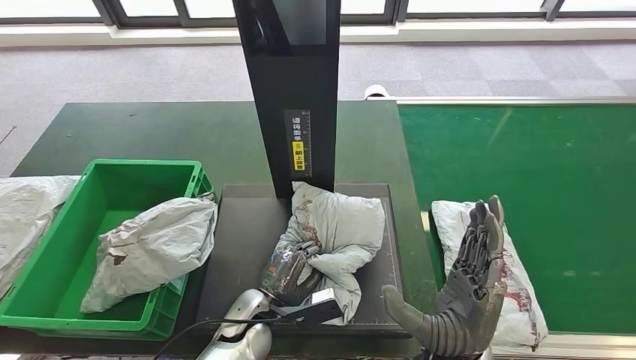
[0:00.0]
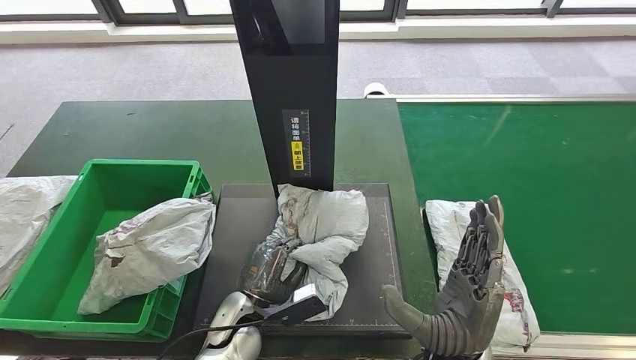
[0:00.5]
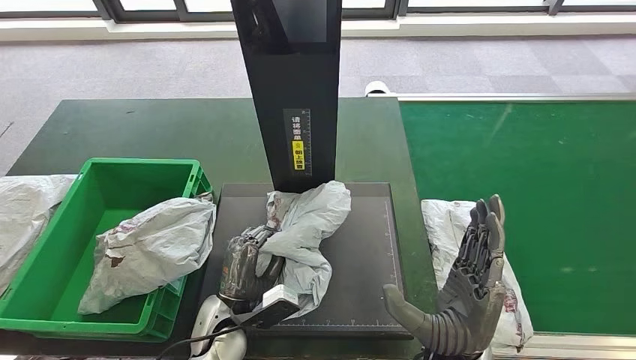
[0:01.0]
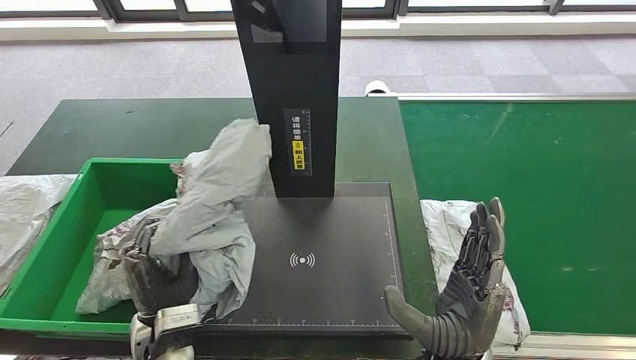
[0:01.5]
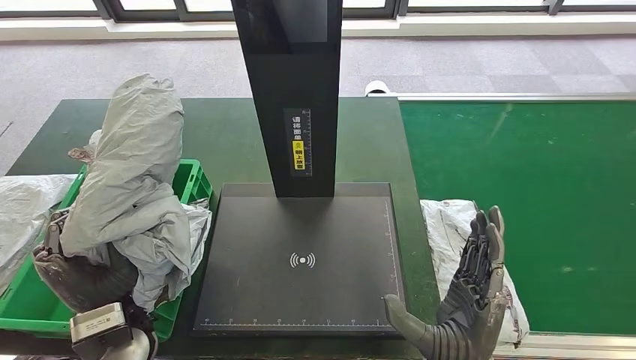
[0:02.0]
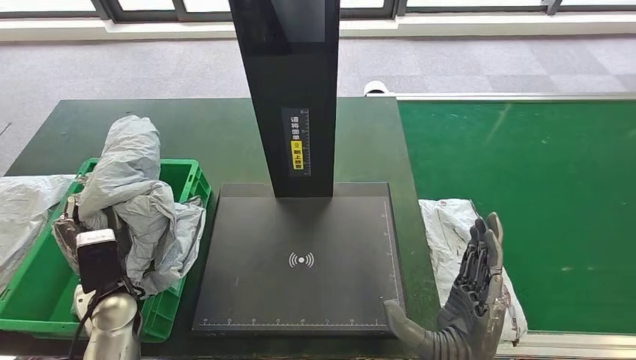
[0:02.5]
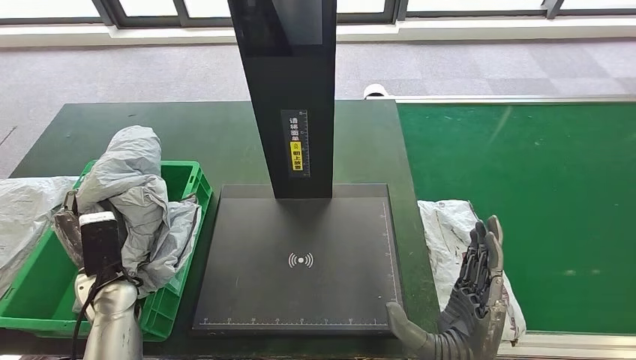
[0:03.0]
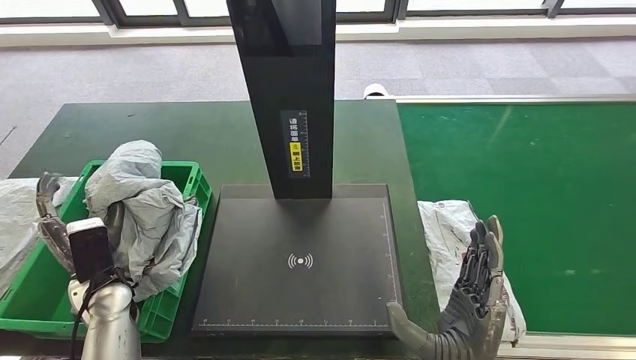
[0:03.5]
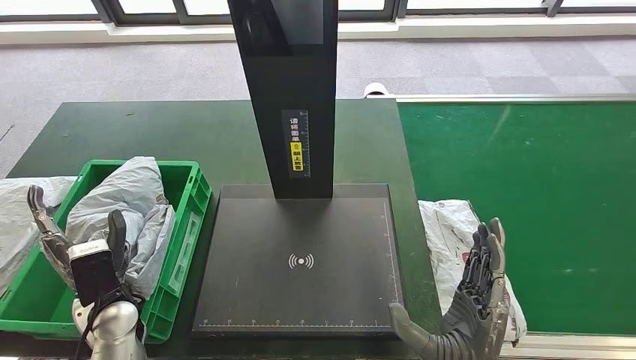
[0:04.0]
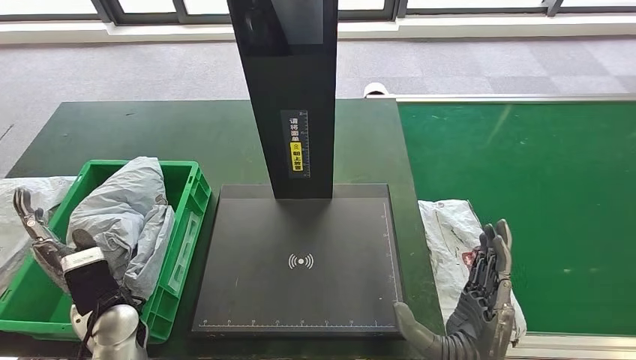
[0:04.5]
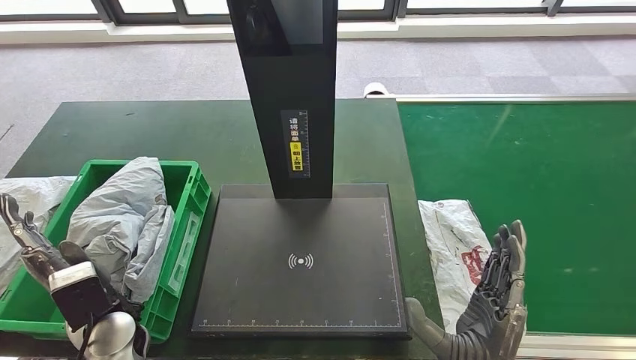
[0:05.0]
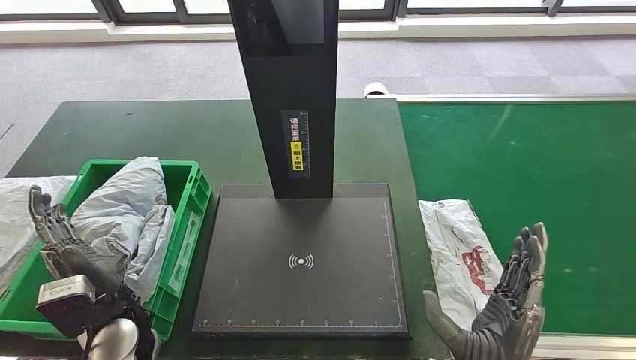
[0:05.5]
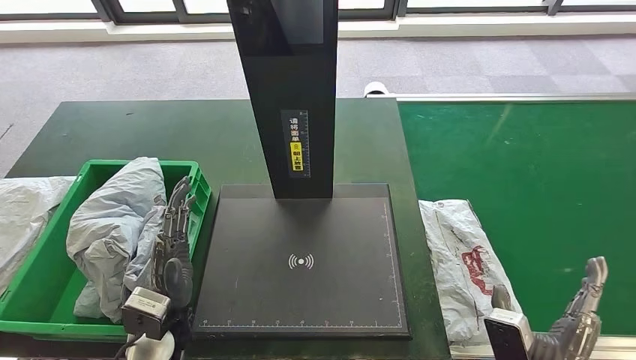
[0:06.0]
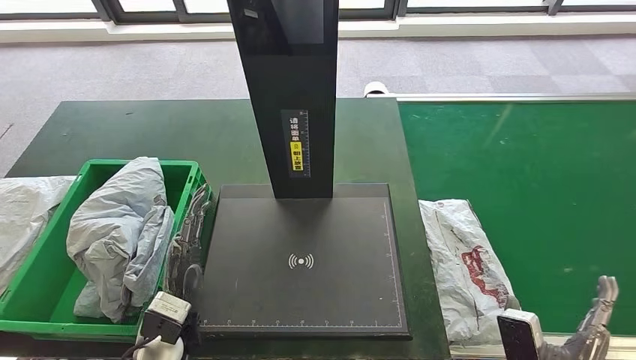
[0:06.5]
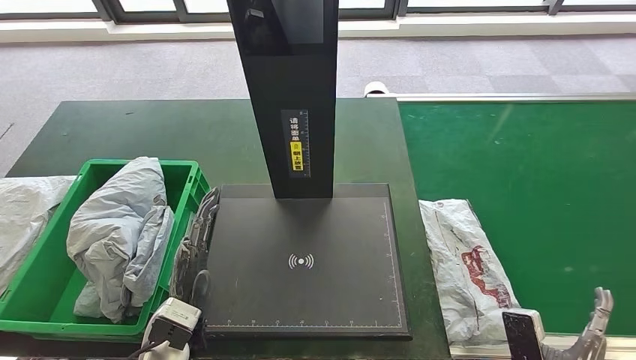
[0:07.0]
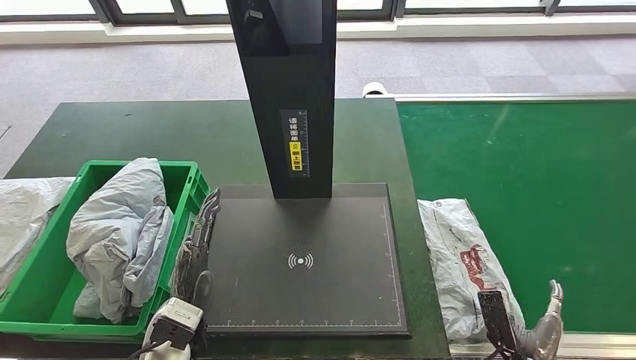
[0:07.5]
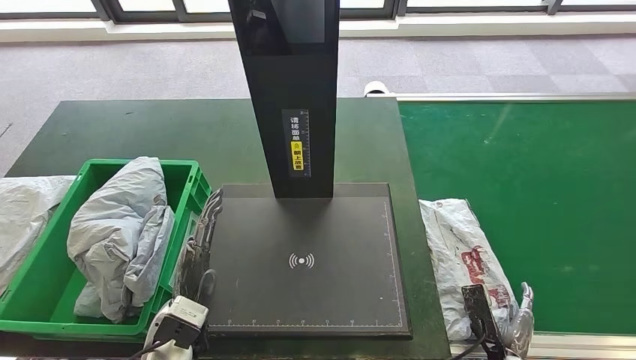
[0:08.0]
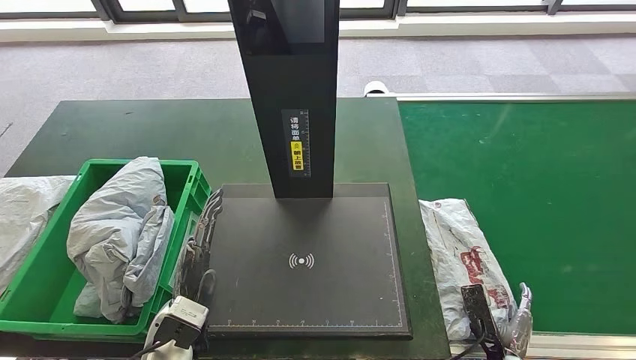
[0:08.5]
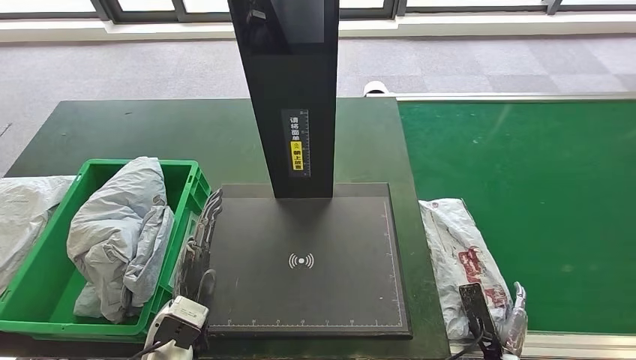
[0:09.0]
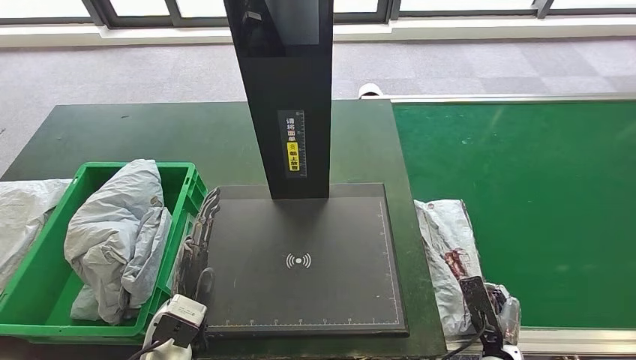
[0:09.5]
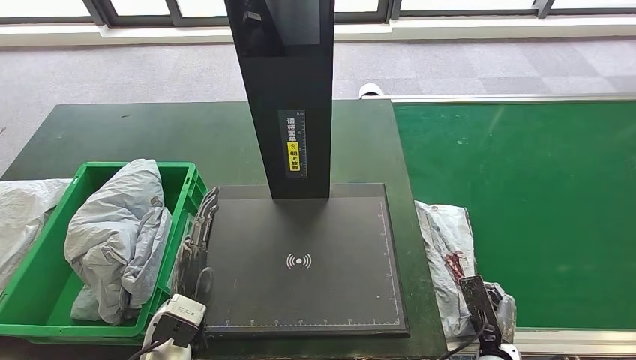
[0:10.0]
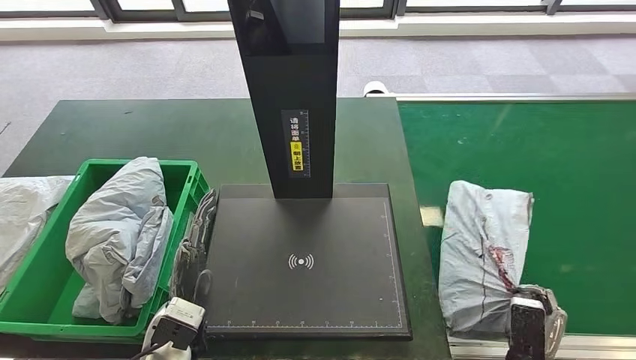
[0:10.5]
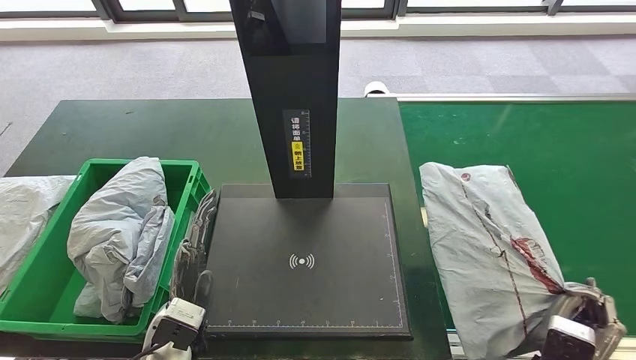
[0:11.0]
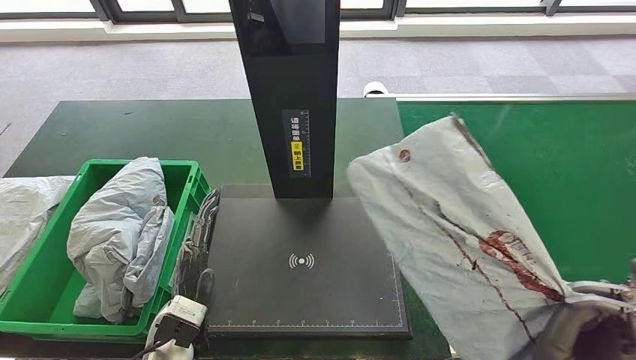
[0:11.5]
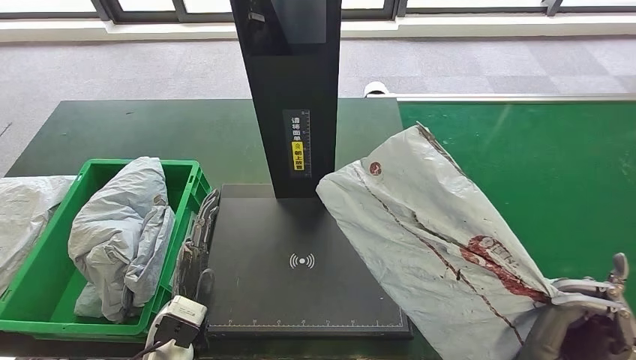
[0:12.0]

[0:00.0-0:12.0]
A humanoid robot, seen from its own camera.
Step, 0:00.0 to 0:02.0: Pick up the parcel from the inbound machine.
Step, 0:02.5 to 0:06.0: Place the parcel into the delivery box.
Step, 0:06.5 to 0:11.0: Pick up the parcel from the conveyor belt.
0:04.0 to 0:06.0: The right hand travels to the right and downward by approximately 15 cm. Meanwhile the left hand travels to the right by approximately 10 cm.
0:06.0 to 0:08.0: The right hand shifts about 10 cm downward.
0:08.0 to 0:10.0: There are only small adjustments of the hands.

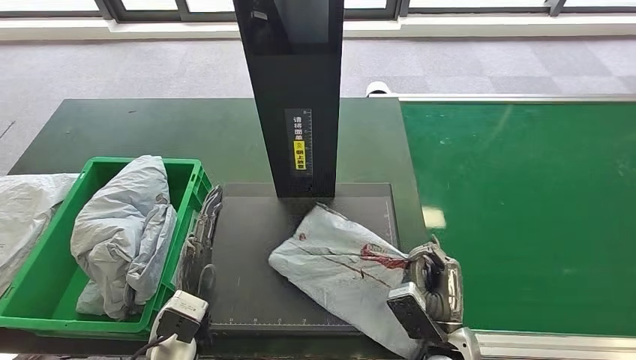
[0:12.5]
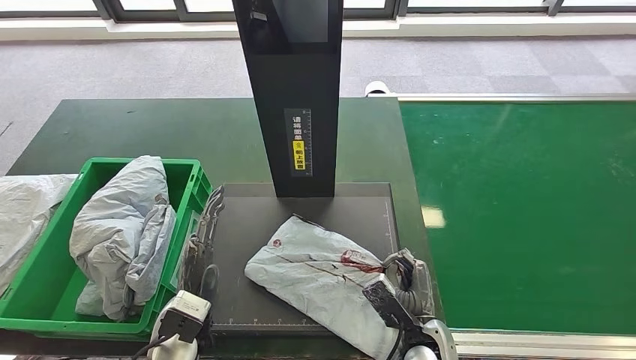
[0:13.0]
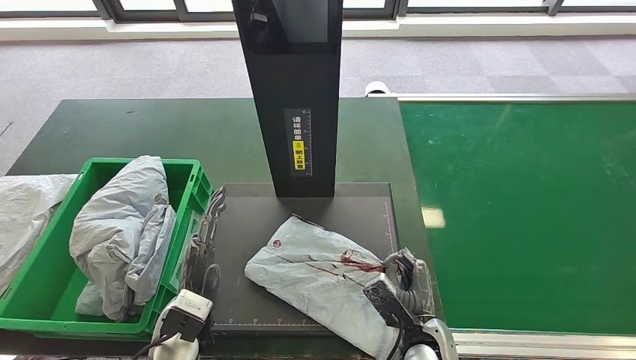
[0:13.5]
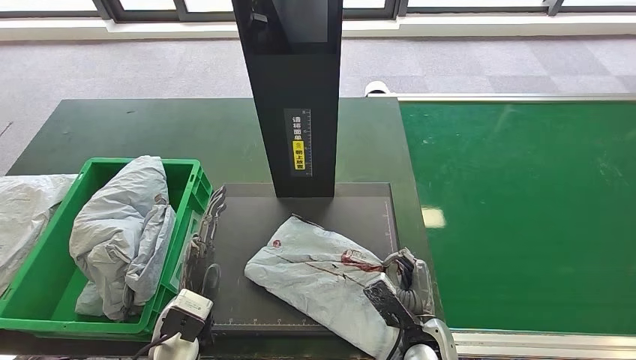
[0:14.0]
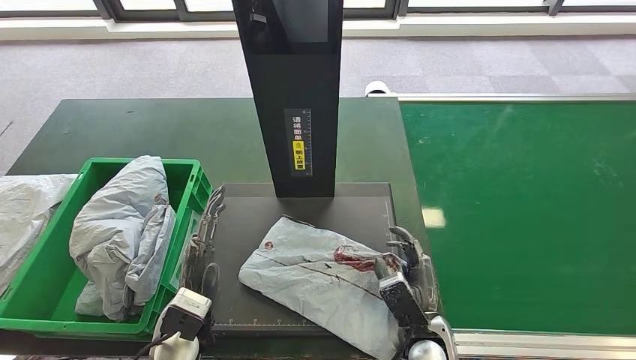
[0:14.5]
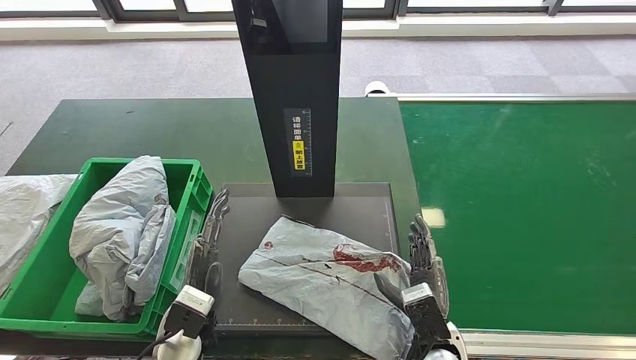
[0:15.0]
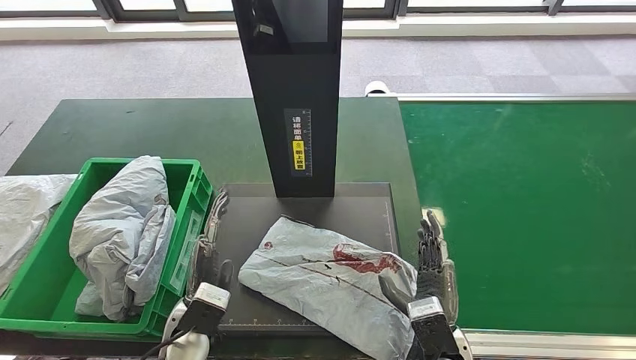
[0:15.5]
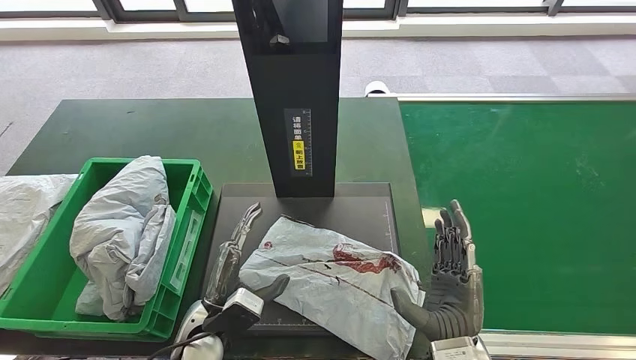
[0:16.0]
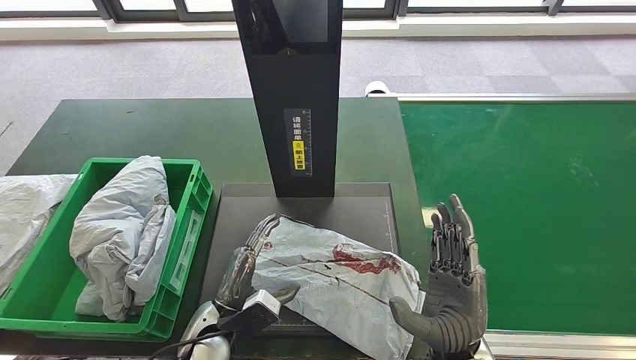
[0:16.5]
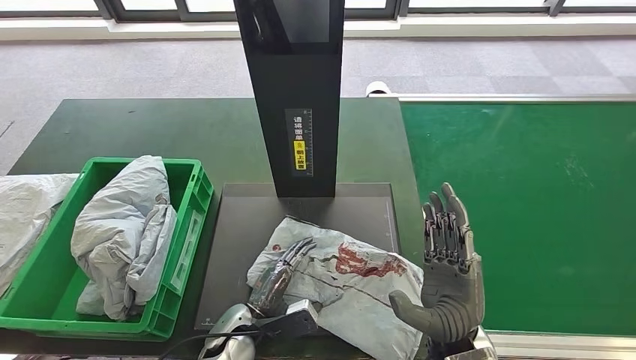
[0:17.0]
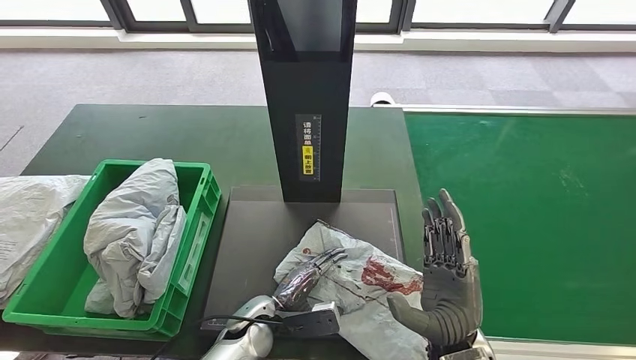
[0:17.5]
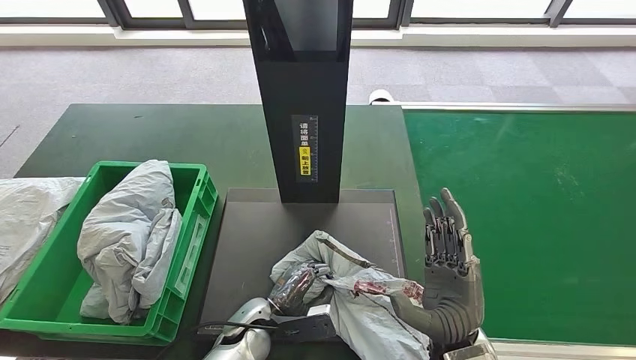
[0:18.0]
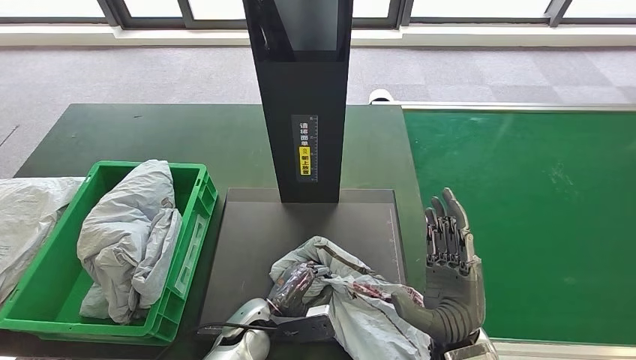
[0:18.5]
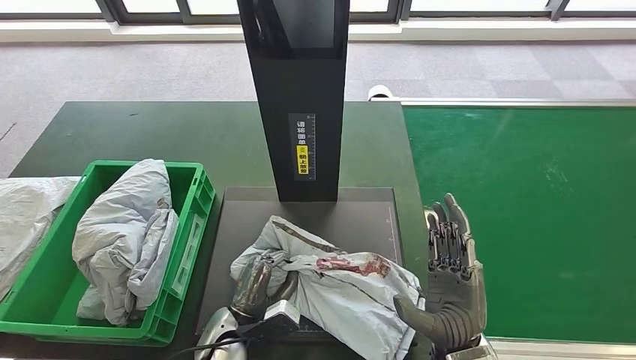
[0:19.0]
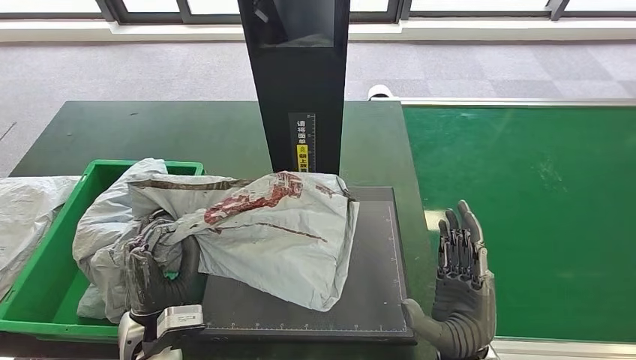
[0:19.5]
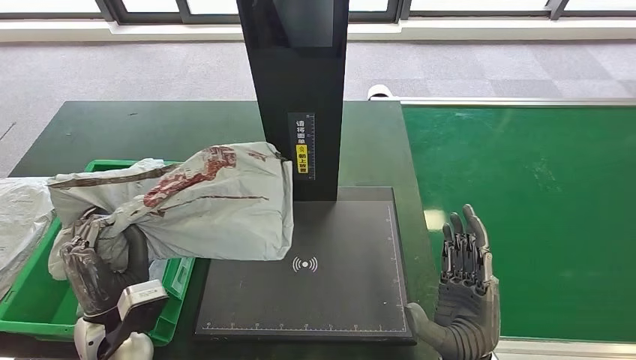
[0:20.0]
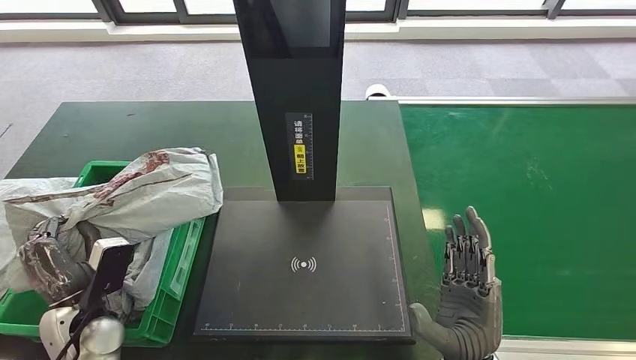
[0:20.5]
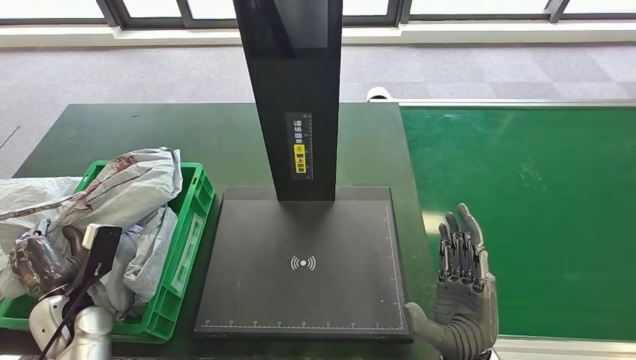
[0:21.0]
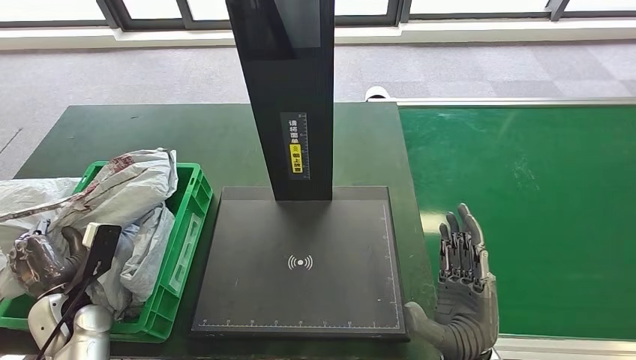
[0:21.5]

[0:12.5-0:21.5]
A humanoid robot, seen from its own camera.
Step, 0:12.5 to 0:16.0: Place the parcel onto the inbound machine.
Step, 0:16.5 to 0:20.5: Pick up the parcel from the inbound machine.
0:12.5 to 0:14.5: The hands stay close to where they were, moving slightly.
0:14.5 to 0:17.0: The left hand travels downward and to the right by about 10 cm, while the right hand moves upward, about 10 cm.
